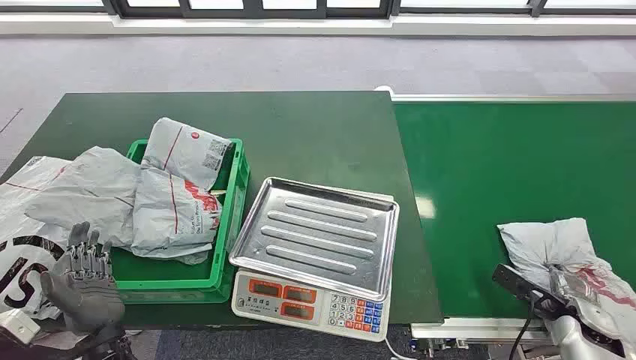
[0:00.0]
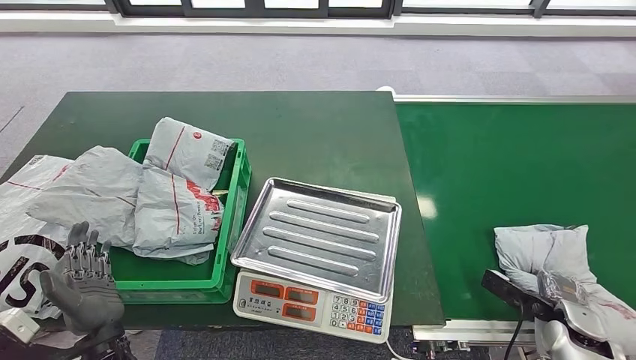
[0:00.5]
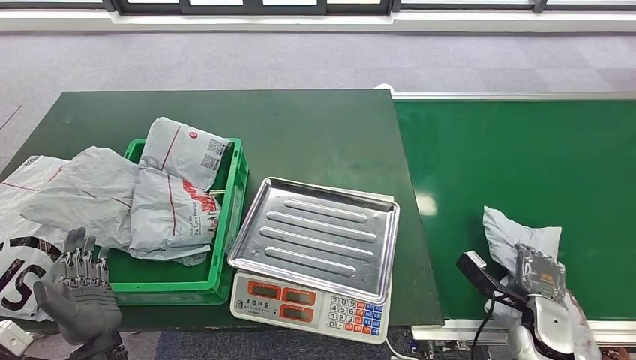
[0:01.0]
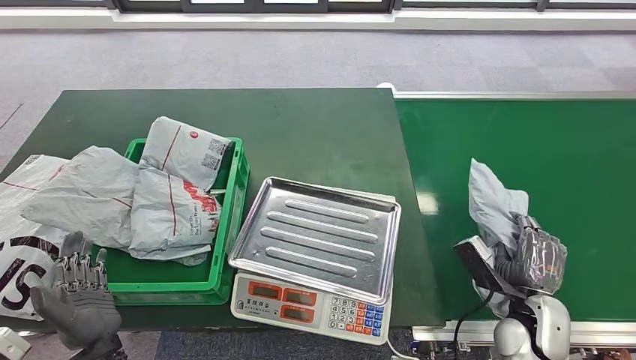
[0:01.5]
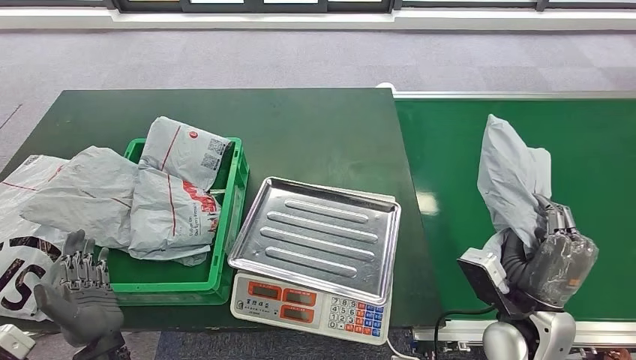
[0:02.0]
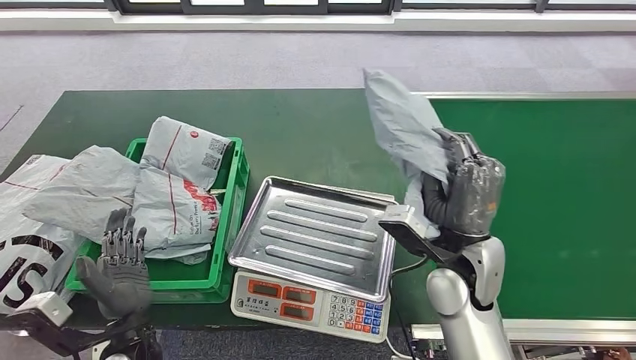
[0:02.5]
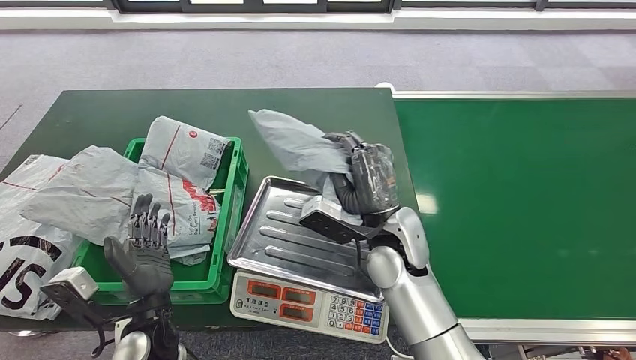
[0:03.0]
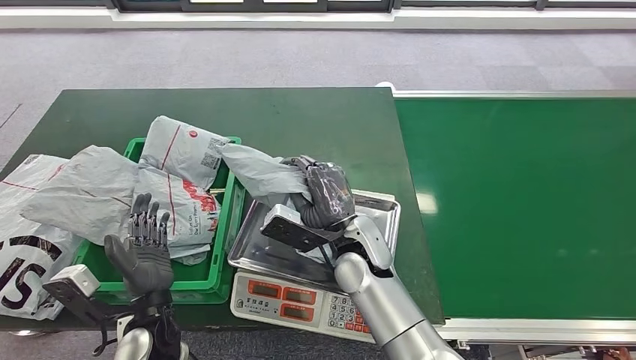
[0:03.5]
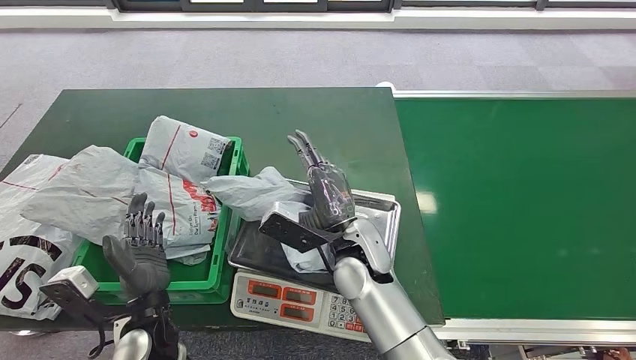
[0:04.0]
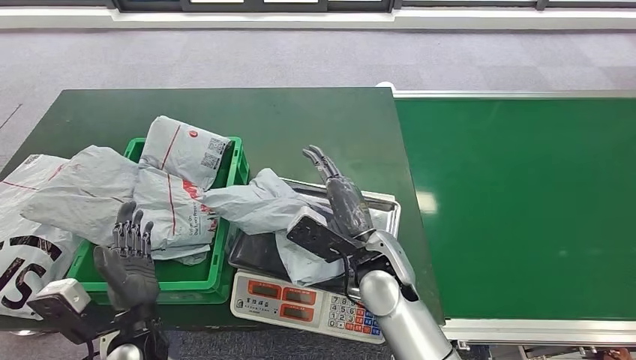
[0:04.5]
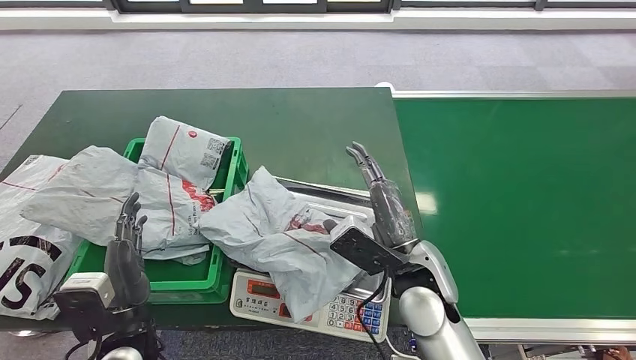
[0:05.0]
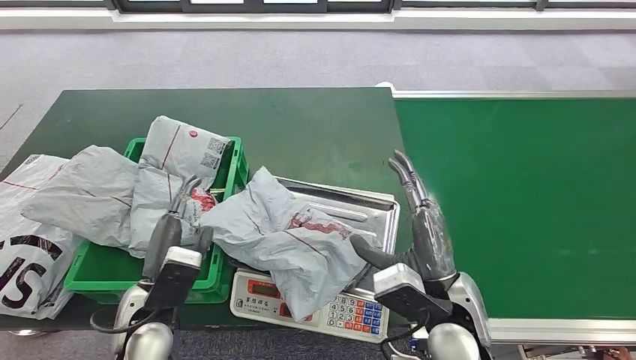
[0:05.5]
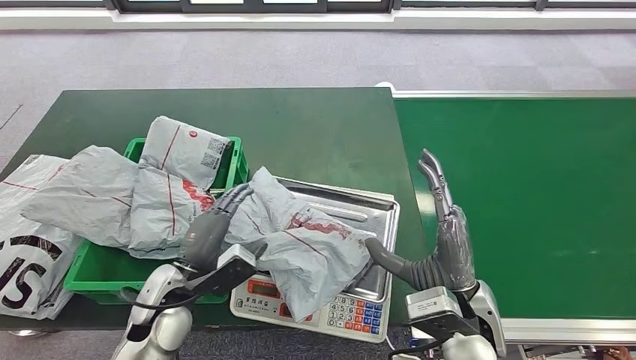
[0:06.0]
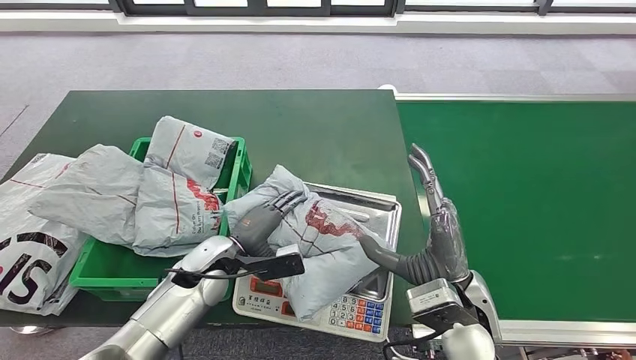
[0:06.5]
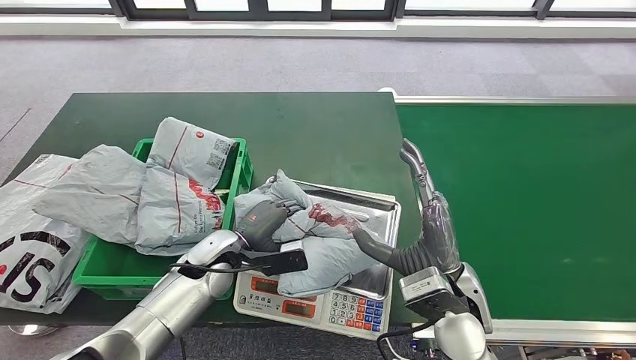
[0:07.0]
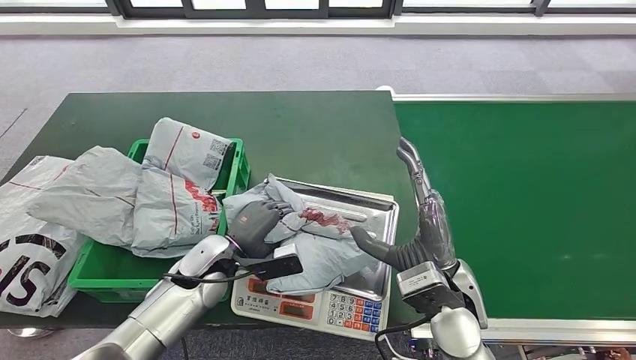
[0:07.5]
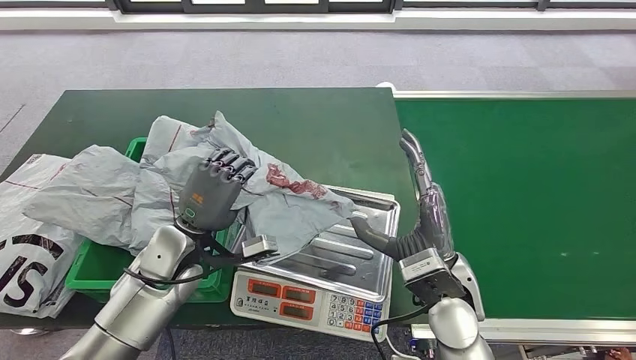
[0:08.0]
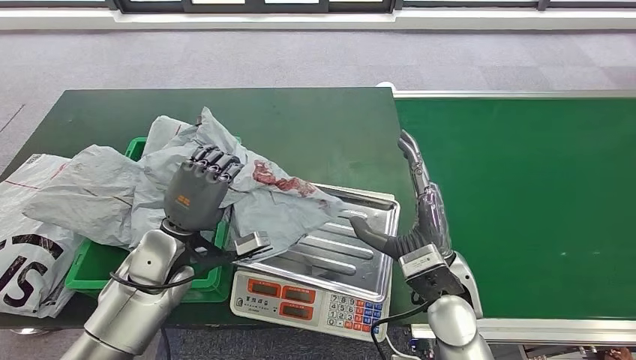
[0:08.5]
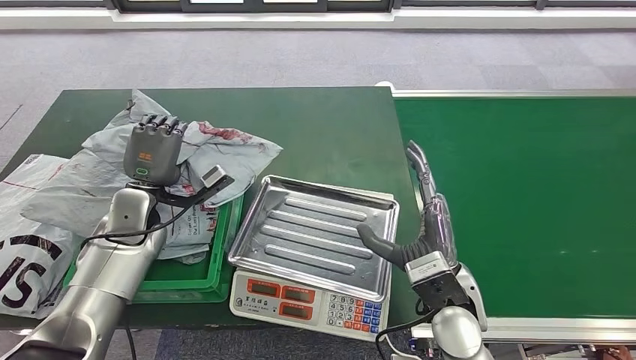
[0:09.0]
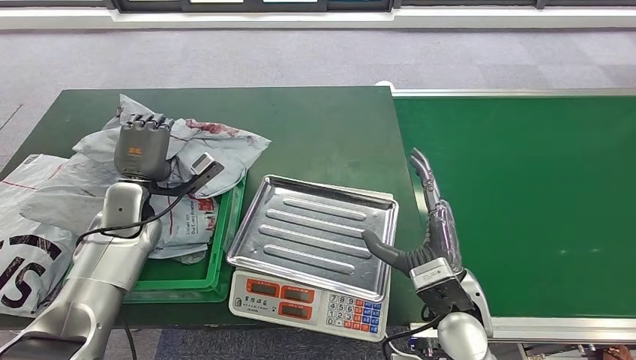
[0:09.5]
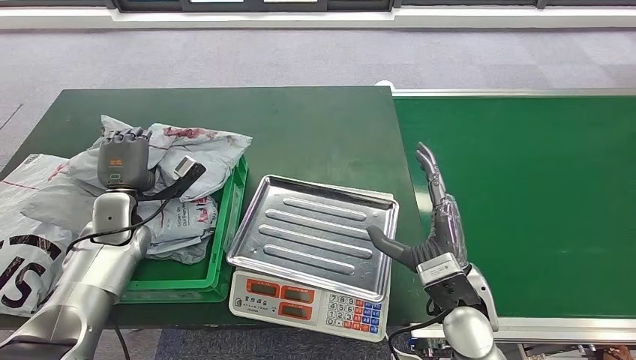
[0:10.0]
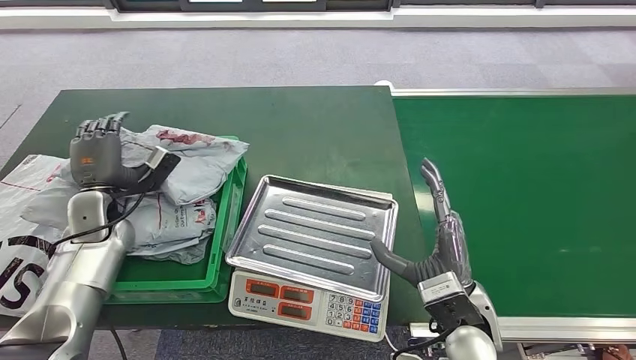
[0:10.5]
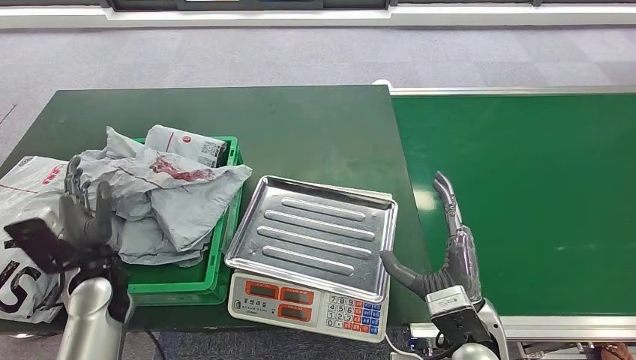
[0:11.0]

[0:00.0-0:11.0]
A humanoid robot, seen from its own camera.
Task of the whole recording: Weigh the package on the weighing device and place it in the left basket.
Step, 0:00.0 to 0:02.0: Pick up the package from the conveyor belt.
Step, 0:02.5 to 0:05.0: Place the package onto the inbound machine.
Step, 0:05.5 to 0:08.5: Pick up the package from the inbound machine.
Step, 0:09.0 to 0:11.0: Place the package into the parcel locker.
0:03.5 to 0:05.5: The right hand is displaced to the right and backward by approximately 15 cm.
